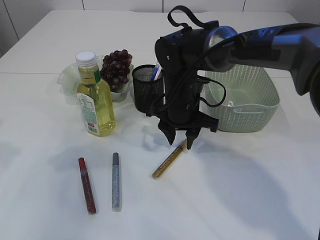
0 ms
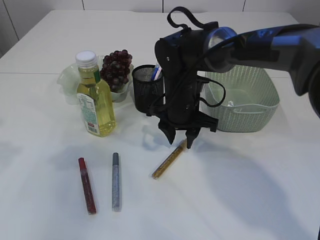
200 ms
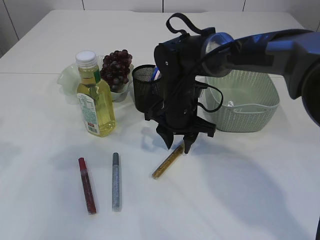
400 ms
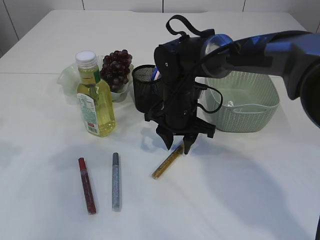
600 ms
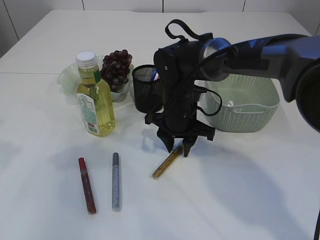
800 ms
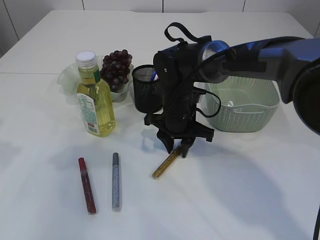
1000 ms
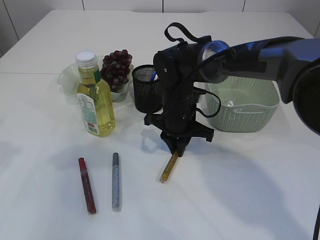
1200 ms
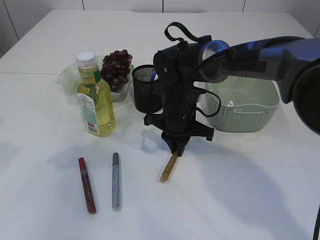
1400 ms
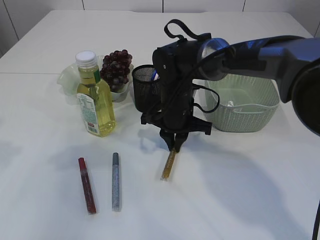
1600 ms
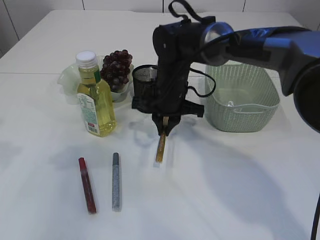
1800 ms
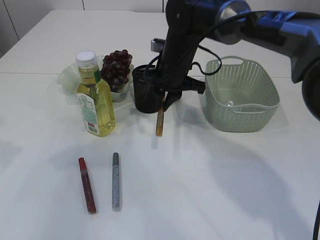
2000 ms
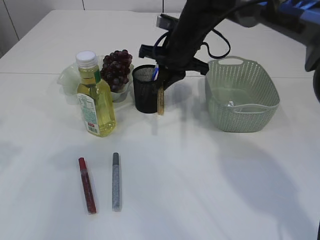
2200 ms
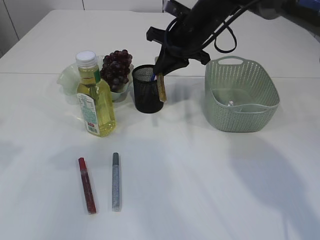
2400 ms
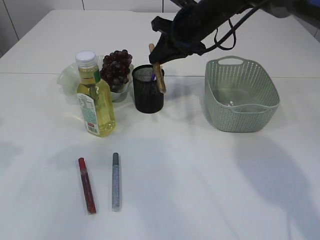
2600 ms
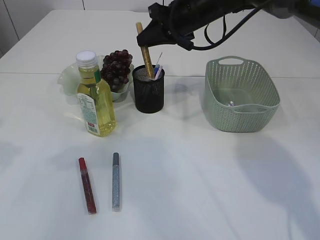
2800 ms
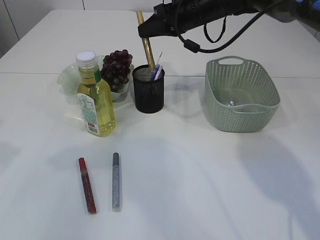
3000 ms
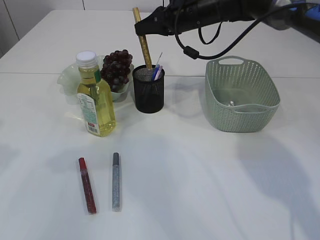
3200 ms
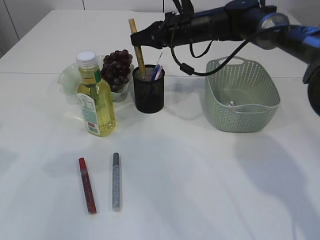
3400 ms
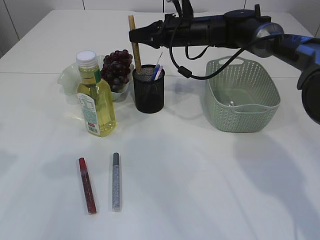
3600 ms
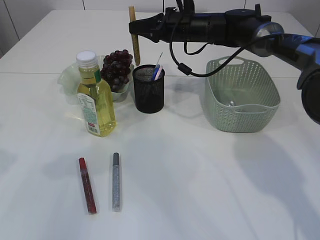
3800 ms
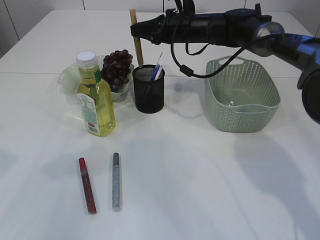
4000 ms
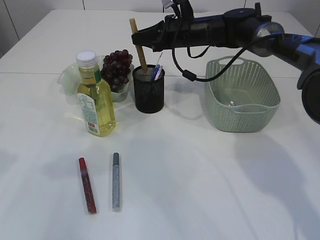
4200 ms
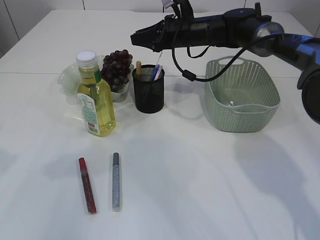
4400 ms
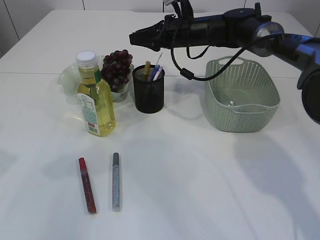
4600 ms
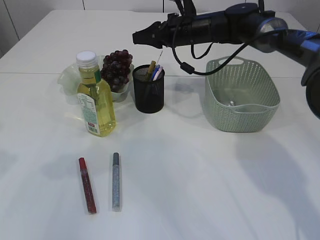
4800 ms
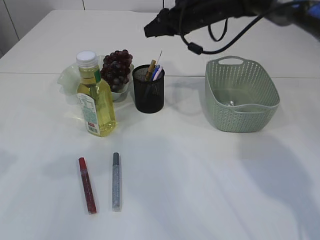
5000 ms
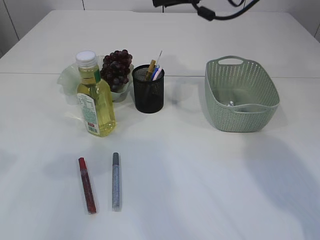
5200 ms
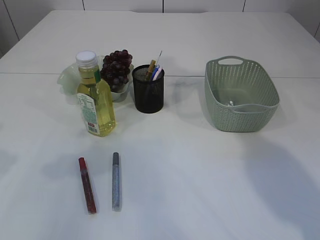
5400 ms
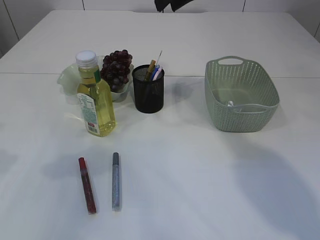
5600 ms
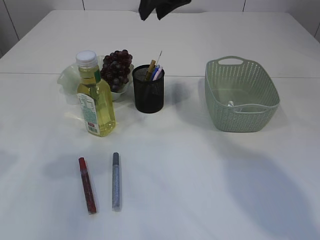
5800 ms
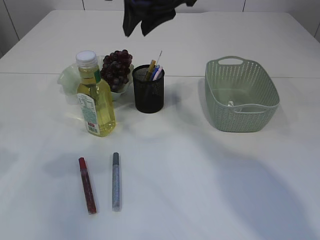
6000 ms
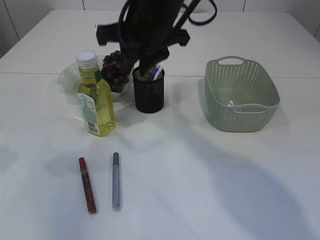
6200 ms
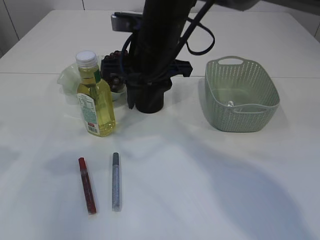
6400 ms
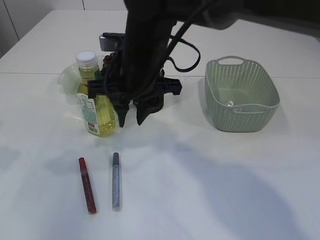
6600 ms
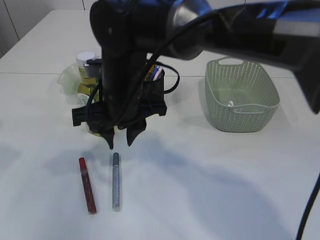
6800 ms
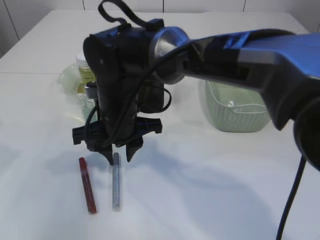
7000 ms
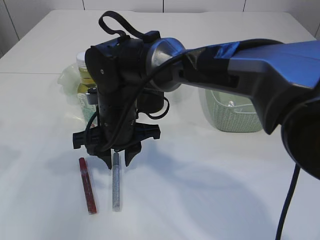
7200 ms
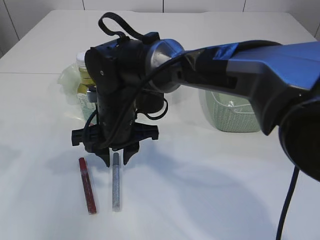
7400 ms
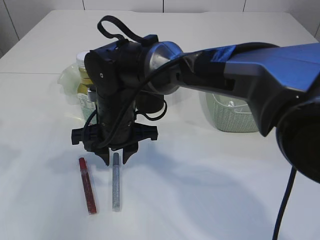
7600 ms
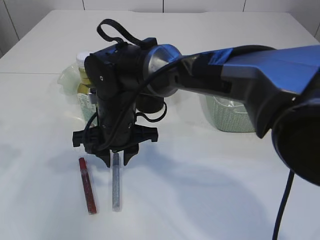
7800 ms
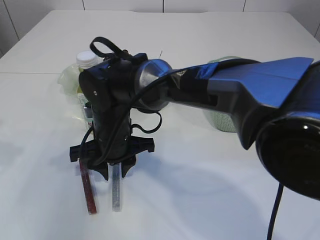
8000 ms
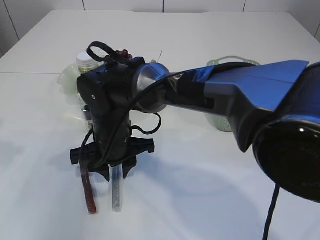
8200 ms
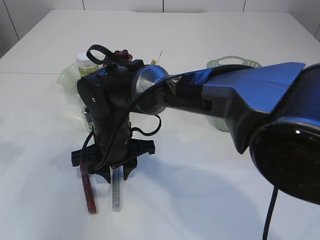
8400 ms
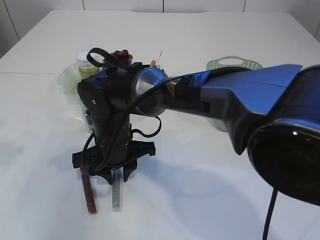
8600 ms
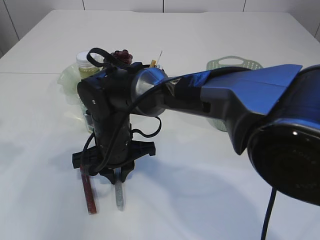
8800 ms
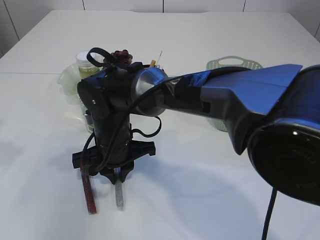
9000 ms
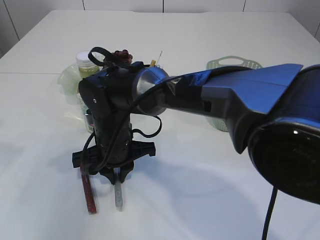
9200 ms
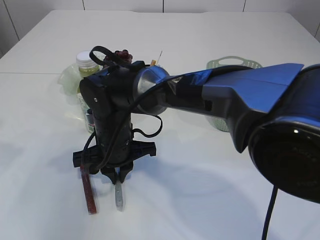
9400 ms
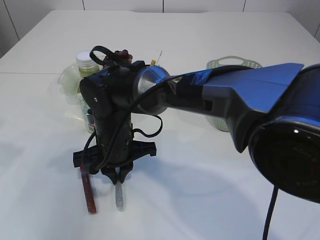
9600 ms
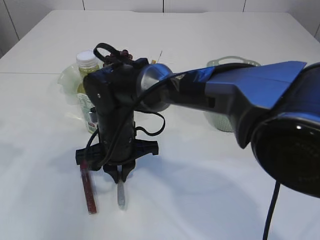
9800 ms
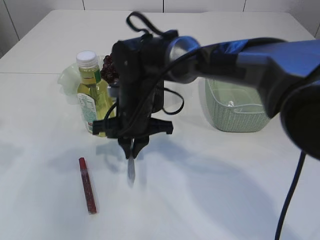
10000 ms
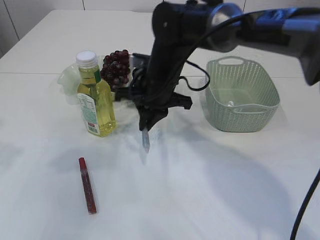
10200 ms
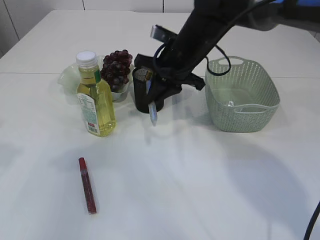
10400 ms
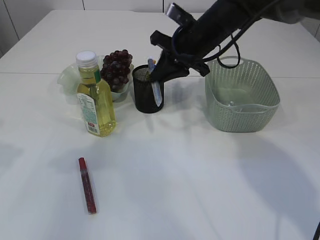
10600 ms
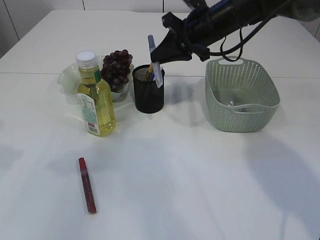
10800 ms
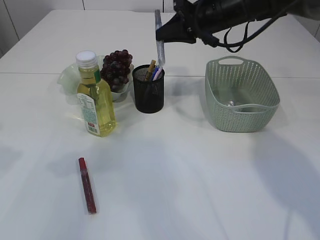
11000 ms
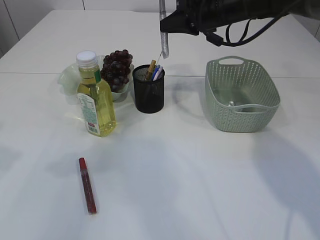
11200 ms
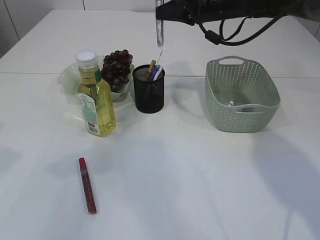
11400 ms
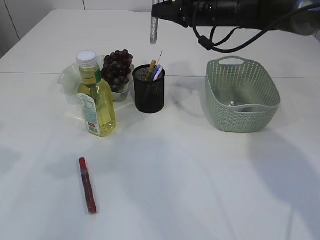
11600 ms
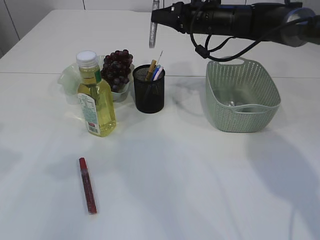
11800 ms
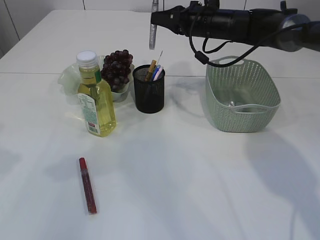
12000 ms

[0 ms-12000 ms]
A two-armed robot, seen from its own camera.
Step, 2000 ms to 4800 ms: place the yellow glue into the pen holder.
Step, 5000 ms to 10000 ms: pick up the silver glue.
0 ms to 1600 ms: The right gripper closes up.
1600 ms to 3000 ms: The right gripper is displaced upward, forward and to the right by roughly 20 cm.
3000 ms to 4400 ms: The right gripper shifts some 5 cm downward.
4400 ms to 6000 ms: The right gripper heads upward, backward and to the left, covering some 20 cm.
6000 ms to 7600 ms: The right gripper heads downward and to the left, covering approximately 20 cm.
9000 ms to 10400 ms: The right gripper shifts about 20 cm to the right, upward and forward.
10400 ms to 12000 ms: The right gripper heads forward and to the right, covering approximately 10 cm.

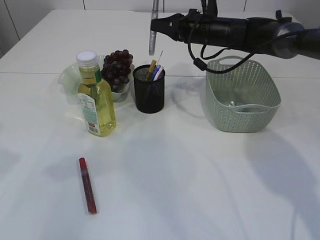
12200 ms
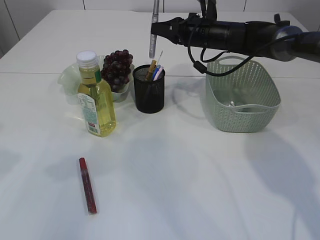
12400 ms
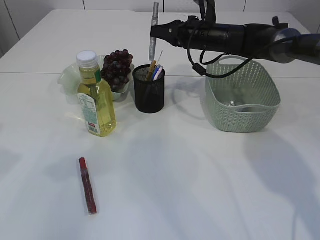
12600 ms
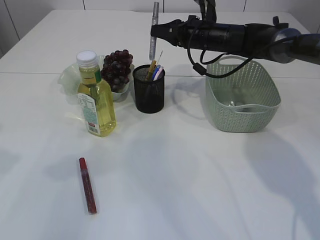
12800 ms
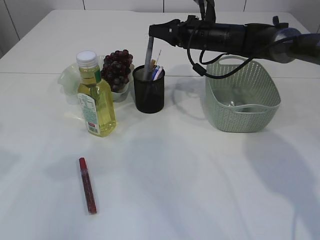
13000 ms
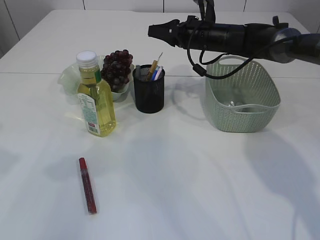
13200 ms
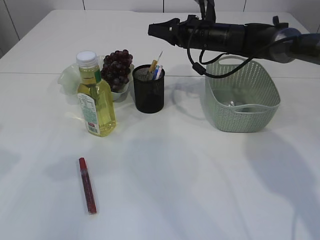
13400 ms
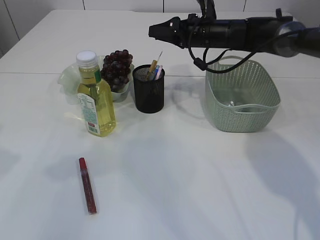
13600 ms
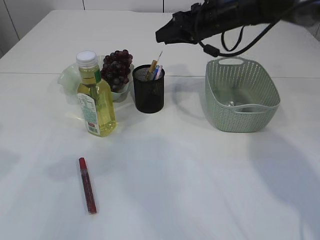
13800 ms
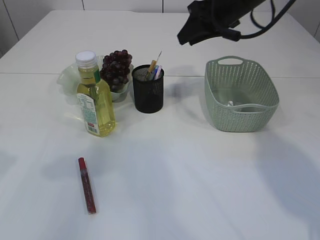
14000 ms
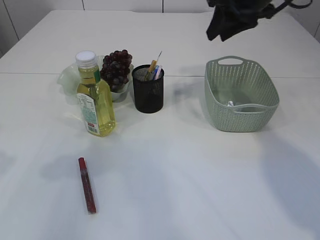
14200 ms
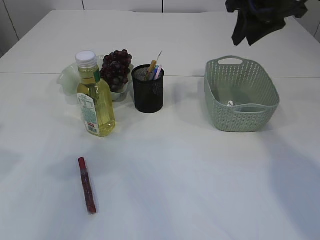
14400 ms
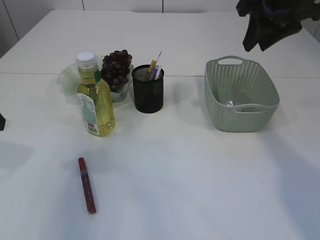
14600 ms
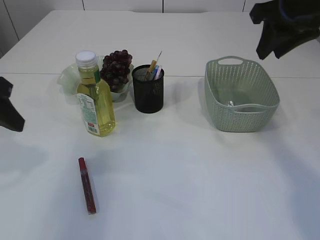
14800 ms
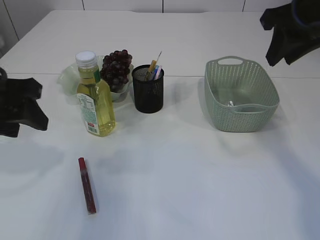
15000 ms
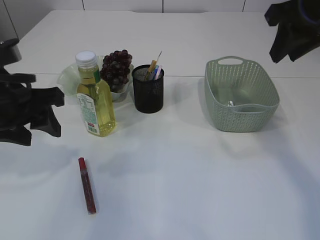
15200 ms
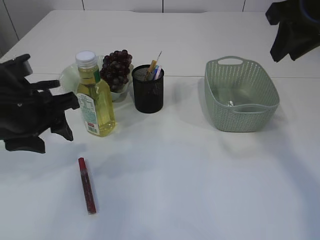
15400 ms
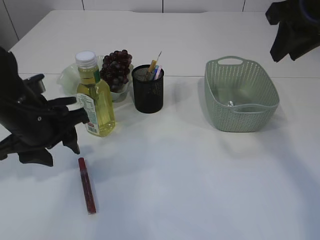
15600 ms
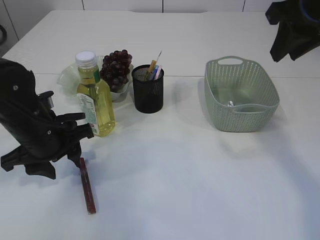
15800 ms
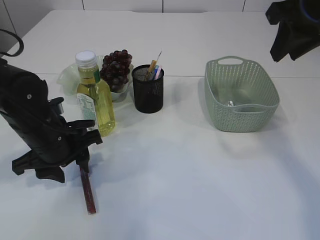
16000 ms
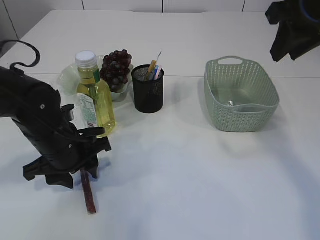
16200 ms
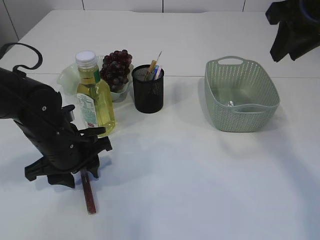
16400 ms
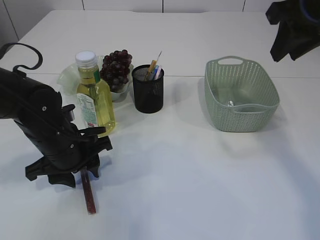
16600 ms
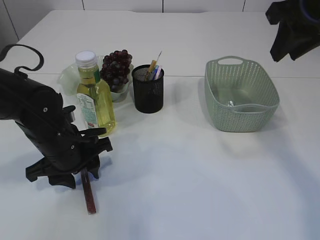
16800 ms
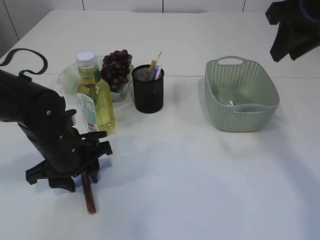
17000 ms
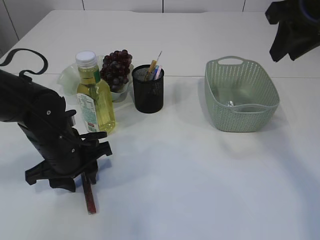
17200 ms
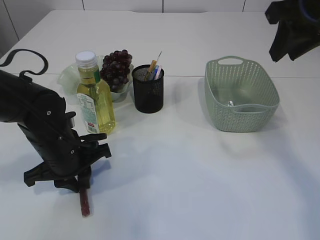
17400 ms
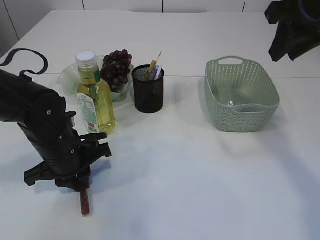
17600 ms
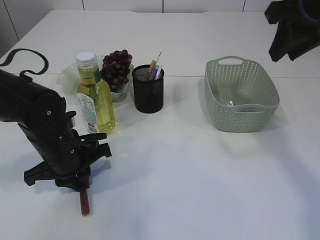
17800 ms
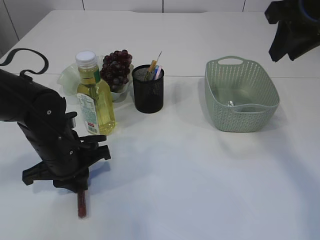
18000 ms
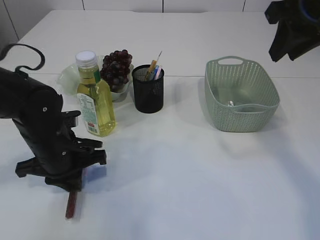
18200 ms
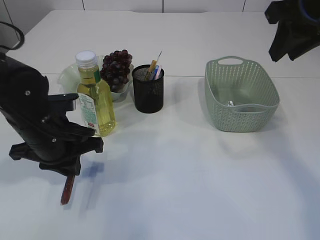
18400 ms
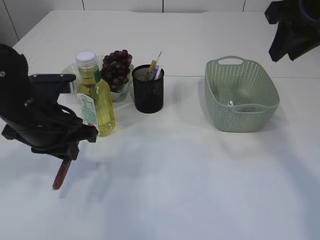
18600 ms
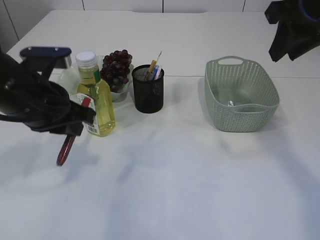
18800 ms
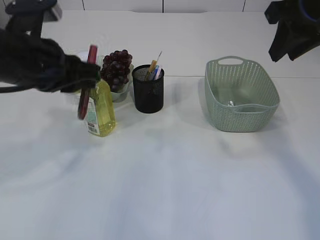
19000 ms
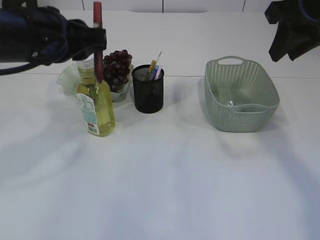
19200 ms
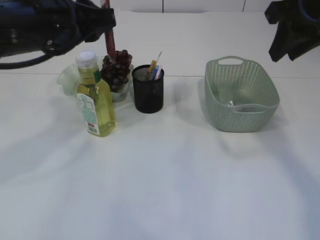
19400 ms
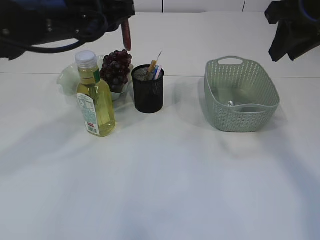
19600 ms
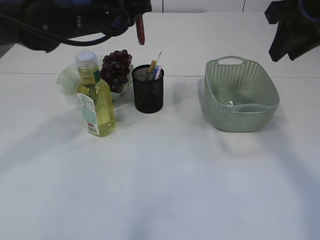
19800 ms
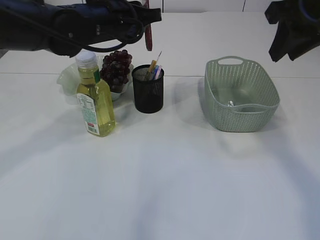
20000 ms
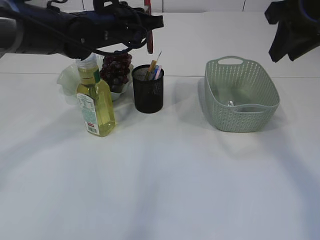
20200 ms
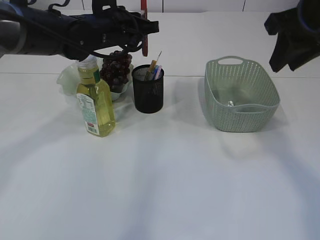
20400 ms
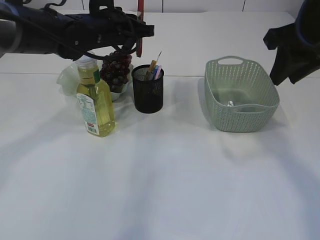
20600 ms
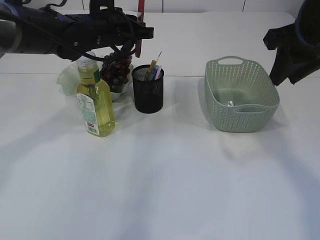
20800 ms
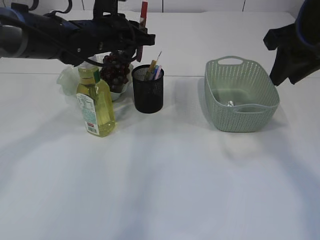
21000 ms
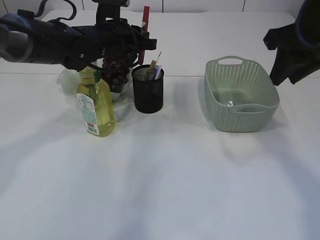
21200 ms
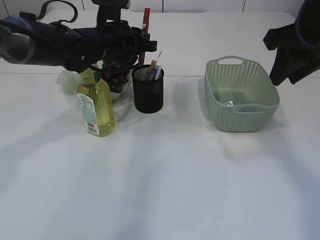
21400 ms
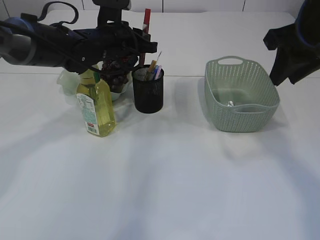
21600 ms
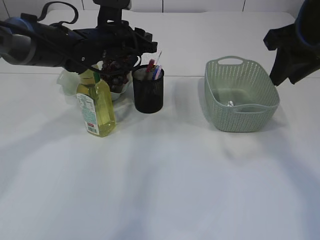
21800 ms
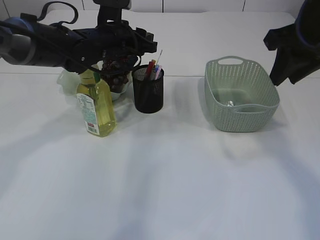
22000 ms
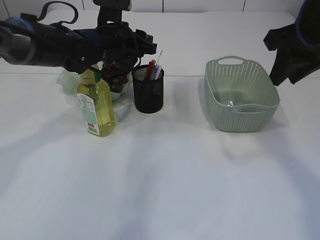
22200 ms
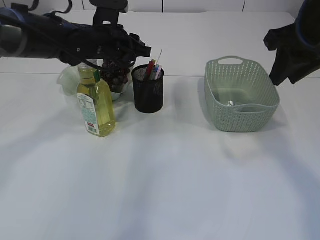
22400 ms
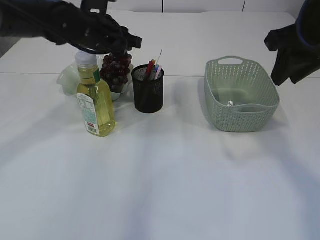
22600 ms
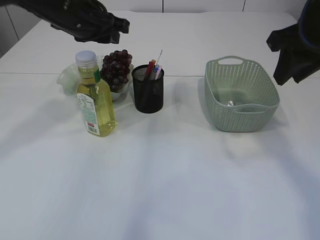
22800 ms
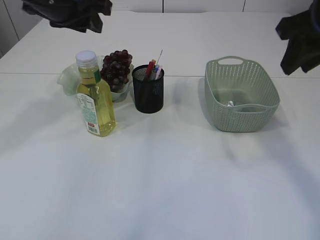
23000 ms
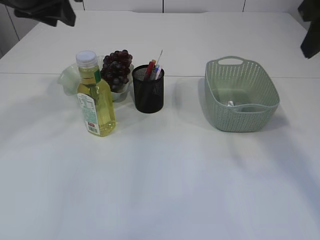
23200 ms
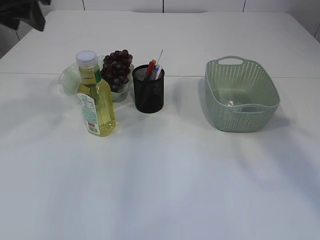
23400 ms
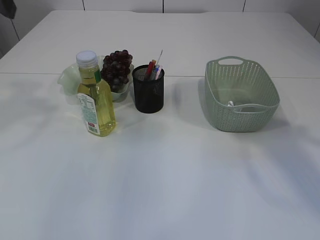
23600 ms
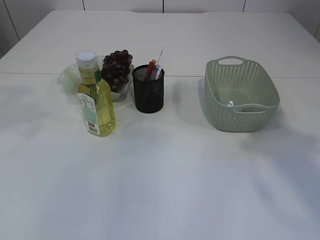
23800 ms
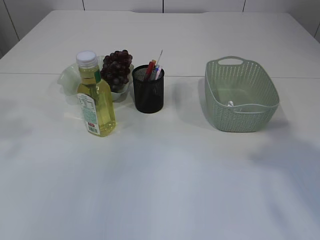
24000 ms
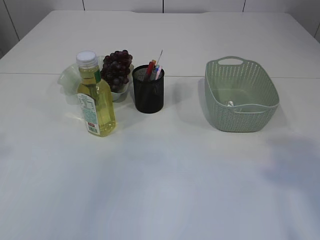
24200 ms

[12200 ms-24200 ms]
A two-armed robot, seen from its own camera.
Step, 13600 ms to 18600 ms: pick up the red glue.
Step, 18800 ms to 22600 ms: place the red glue into the pen holder.
12200 ms to 13800 ms: The right gripper opens up.
13800 ms to 15200 ms: The right gripper moves backward, upward and to the right, about 20 cm. Meanwhile the left gripper is displaced to the right by roughly 10 cm.
15200 ms to 16600 ms: The left gripper is displaced downward by about 15 cm.
16600 ms to 18200 ms: The left gripper closes its fingers.
18200 ms to 19800 ms: The left gripper shifts some 20 cm upward and forward.
19800 ms to 21200 ms: The left gripper moves forward and downward, roughly 10 cm.
21200 ms to 22600 ms: The grippers stay close to where they were, moving slightly.
22600 ms to 24200 ms: The right gripper travels backward and upward by about 25 cm. The left gripper moves backward, upward and to the left, roughly 30 cm.
